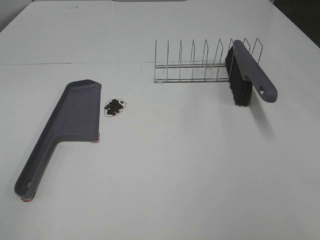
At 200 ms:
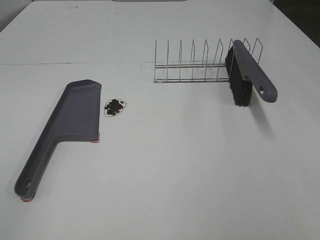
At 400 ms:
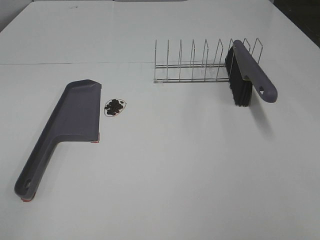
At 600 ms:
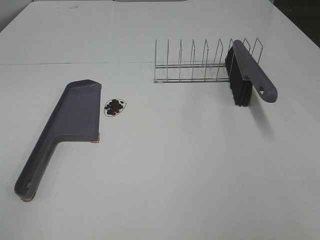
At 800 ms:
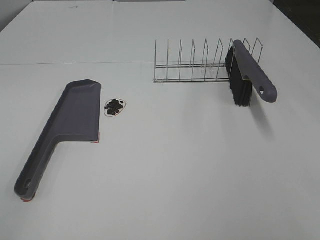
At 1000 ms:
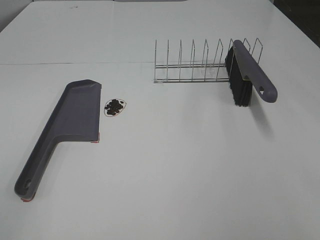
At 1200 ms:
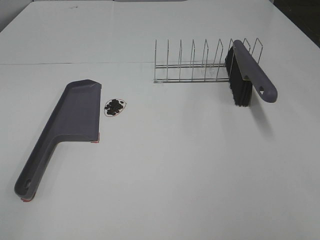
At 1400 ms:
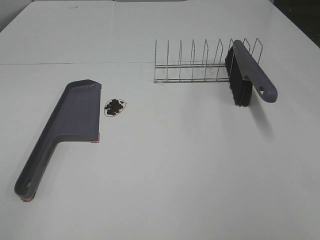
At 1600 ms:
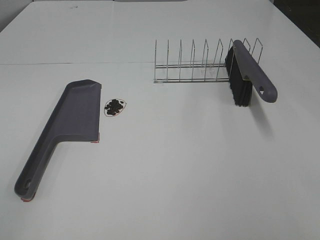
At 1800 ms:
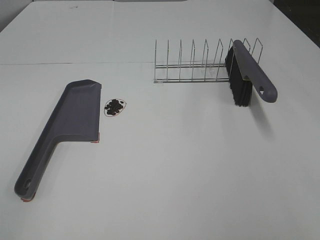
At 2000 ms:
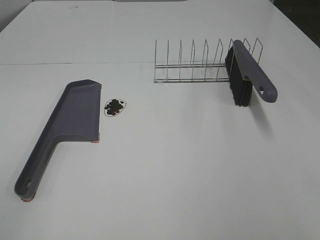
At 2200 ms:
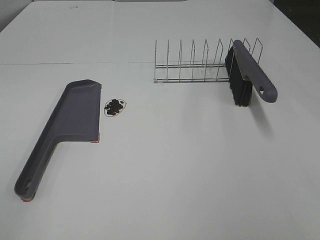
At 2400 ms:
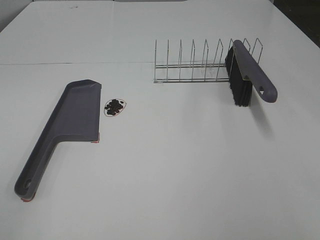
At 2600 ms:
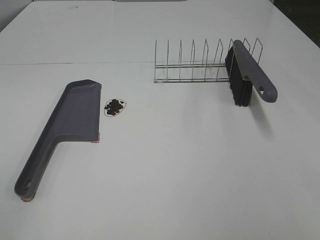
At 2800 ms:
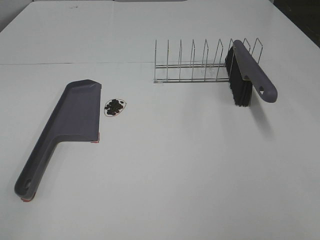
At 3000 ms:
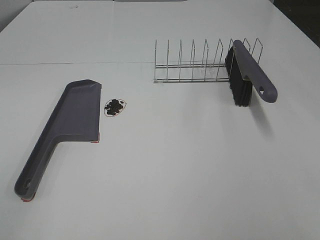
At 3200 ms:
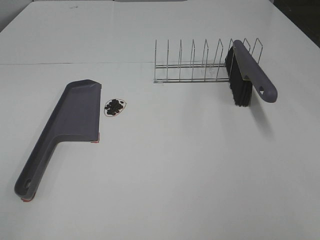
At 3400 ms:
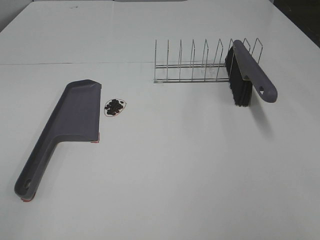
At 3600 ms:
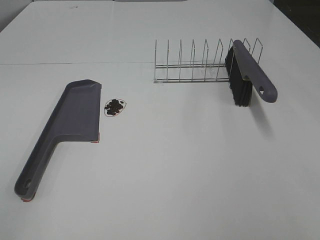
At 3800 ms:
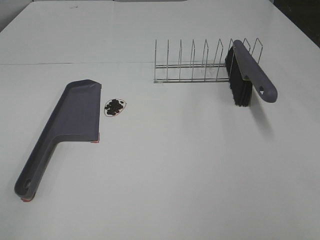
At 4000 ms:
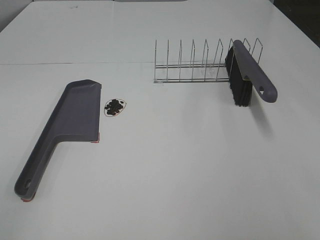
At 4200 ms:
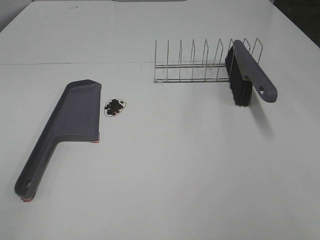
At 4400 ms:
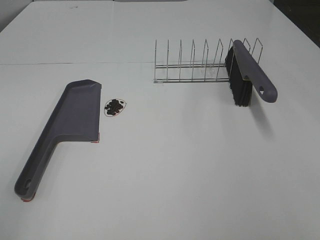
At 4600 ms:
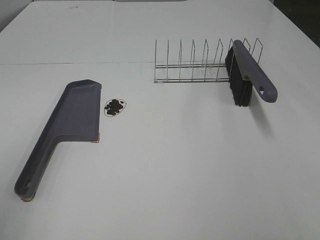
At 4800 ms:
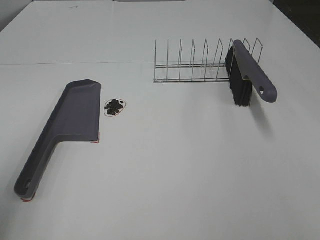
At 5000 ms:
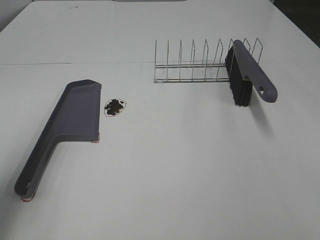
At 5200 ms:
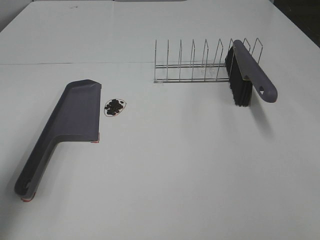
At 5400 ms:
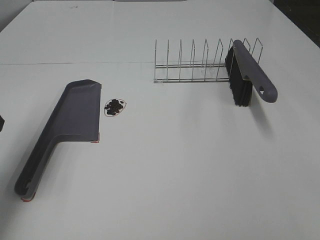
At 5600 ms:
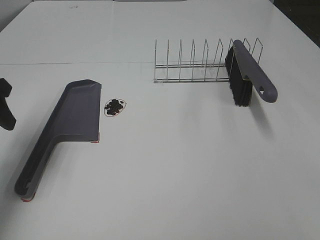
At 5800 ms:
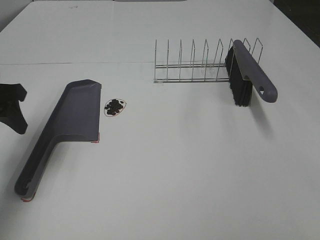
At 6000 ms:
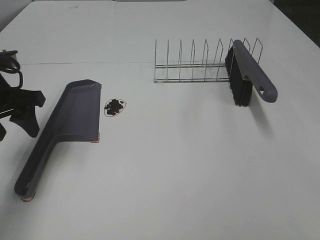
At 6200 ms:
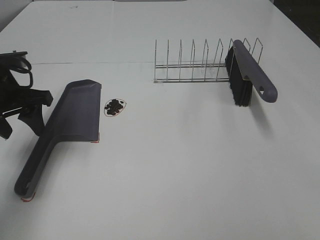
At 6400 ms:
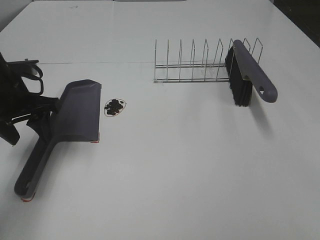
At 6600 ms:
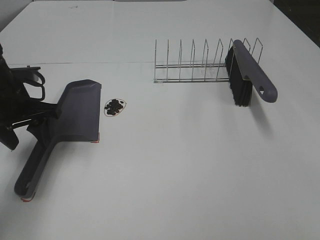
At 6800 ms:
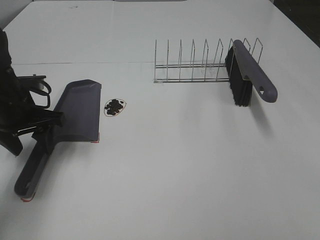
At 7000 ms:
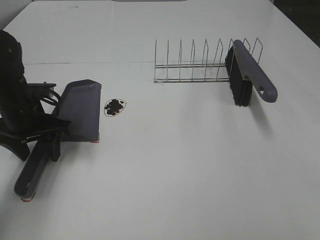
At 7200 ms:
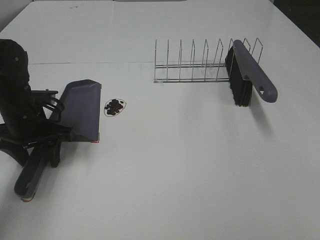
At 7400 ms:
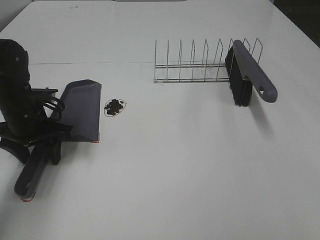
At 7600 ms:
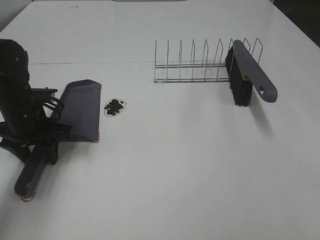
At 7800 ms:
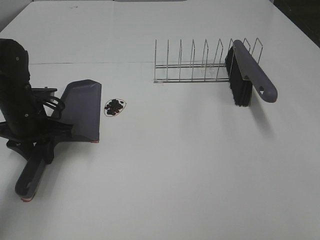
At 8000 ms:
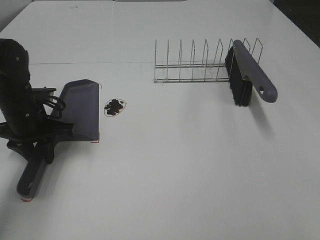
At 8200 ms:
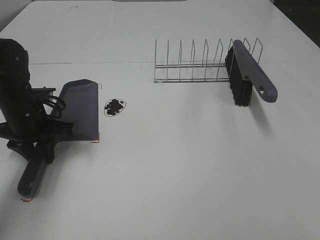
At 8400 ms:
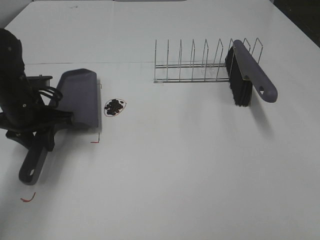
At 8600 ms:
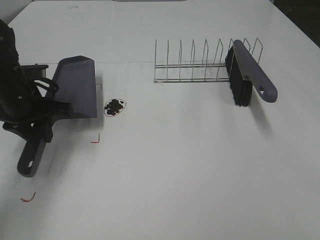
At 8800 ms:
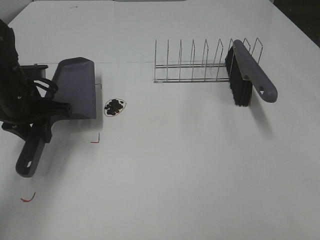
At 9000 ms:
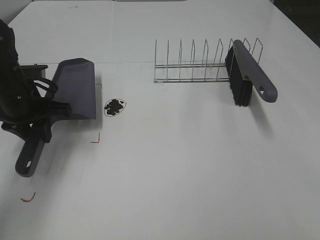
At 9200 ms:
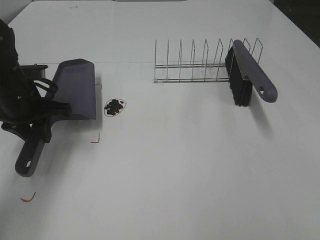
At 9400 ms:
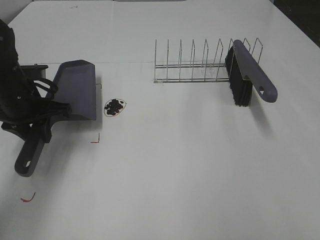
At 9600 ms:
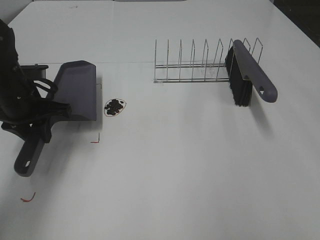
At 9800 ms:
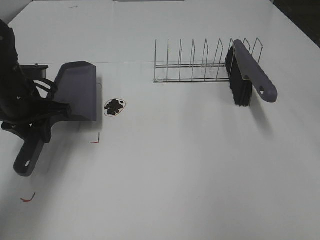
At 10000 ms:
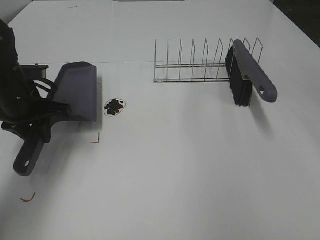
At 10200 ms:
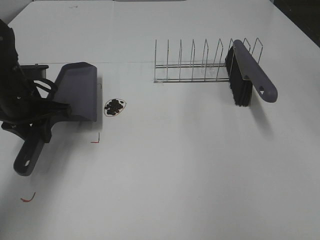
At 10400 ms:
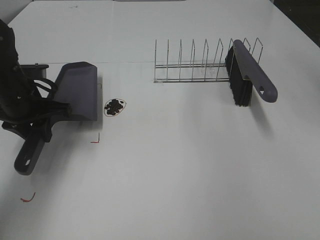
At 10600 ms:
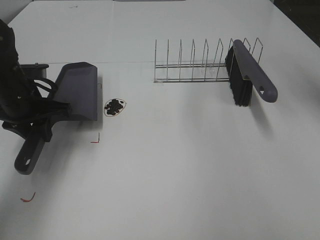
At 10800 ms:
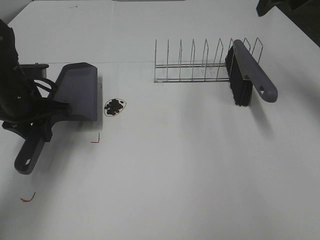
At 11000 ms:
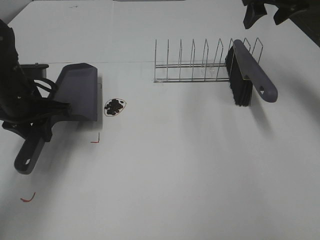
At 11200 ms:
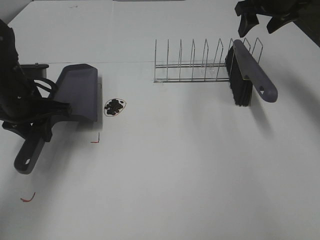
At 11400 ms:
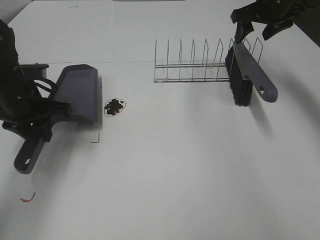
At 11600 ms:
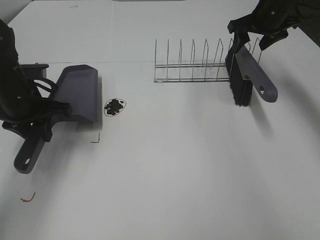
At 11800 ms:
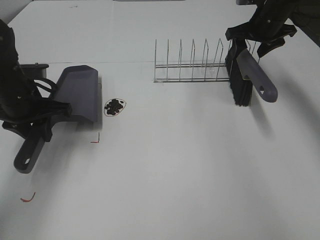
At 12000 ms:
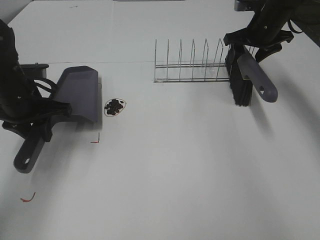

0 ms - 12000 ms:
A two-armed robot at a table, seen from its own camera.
Task of the whole recording: Sweep Coffee Bean.
Step, 0 ms - 7800 ms: Left hand: grab the dustpan.
0 ms - 3000 ms: Both grippers stay put.
4400 ms - 6000 ms: The left gripper shifts some 30 cm forward.
6000 ms - 7600 ms: The left gripper heads downward, covering approximately 10 cm, and closes its fingers.
7600 ms - 9000 ms: The left gripper closes up.
10400 ms - 12000 ms: The right gripper goes approximately 25 cm downward and forward.

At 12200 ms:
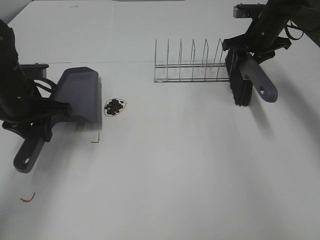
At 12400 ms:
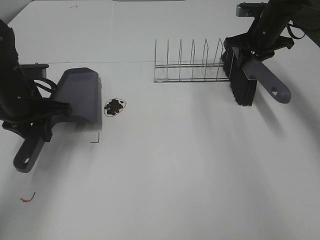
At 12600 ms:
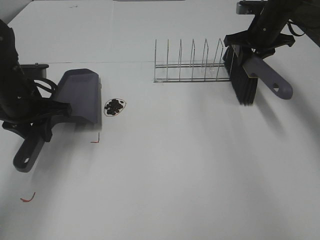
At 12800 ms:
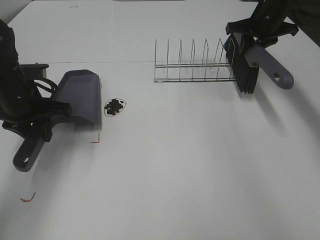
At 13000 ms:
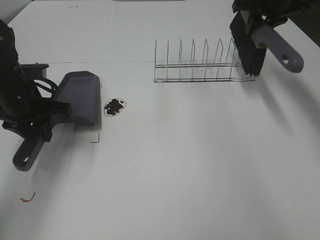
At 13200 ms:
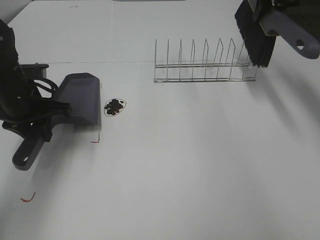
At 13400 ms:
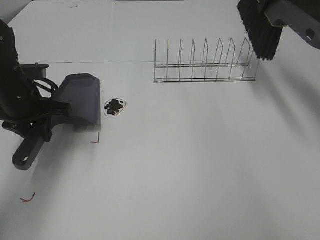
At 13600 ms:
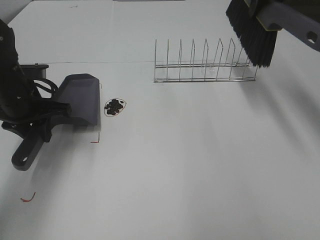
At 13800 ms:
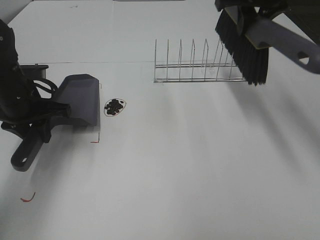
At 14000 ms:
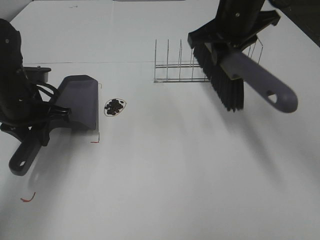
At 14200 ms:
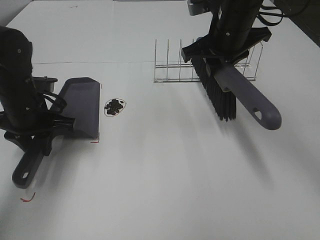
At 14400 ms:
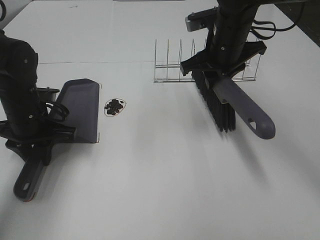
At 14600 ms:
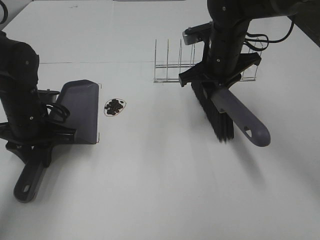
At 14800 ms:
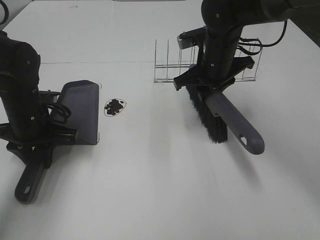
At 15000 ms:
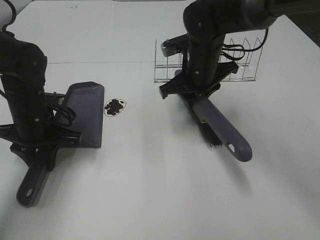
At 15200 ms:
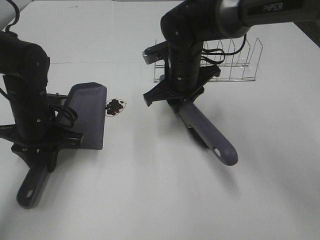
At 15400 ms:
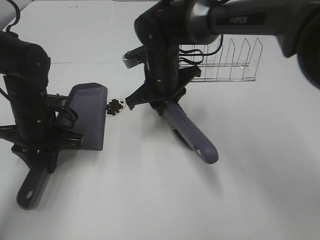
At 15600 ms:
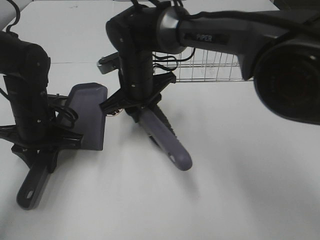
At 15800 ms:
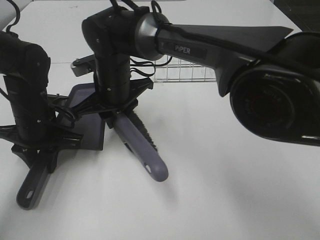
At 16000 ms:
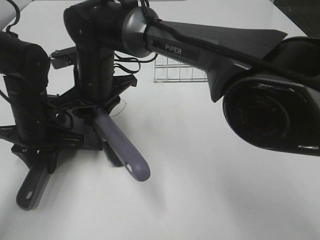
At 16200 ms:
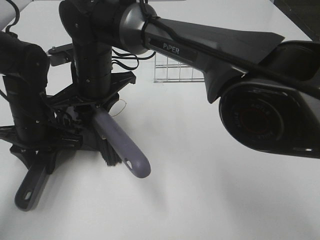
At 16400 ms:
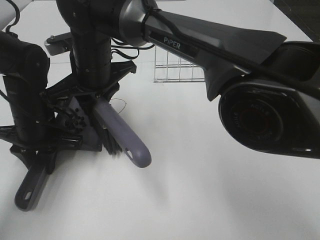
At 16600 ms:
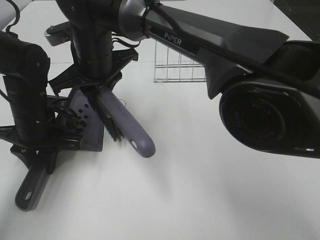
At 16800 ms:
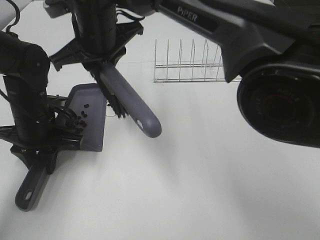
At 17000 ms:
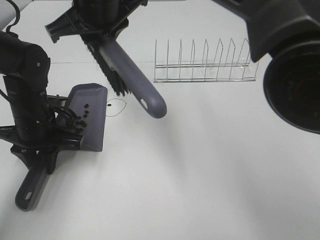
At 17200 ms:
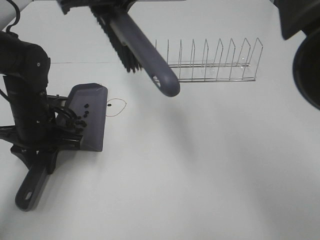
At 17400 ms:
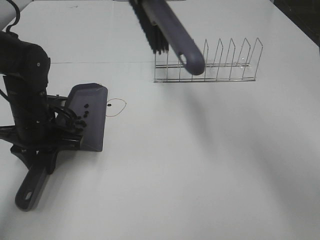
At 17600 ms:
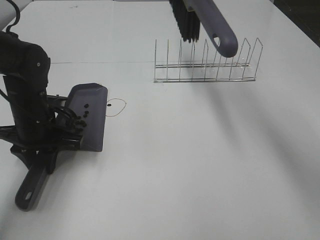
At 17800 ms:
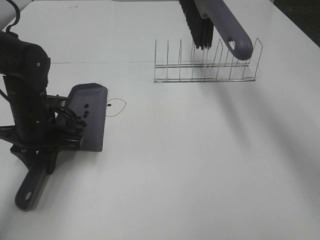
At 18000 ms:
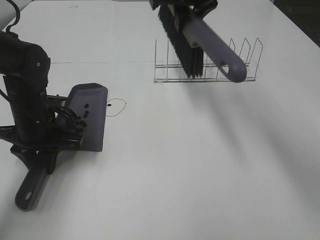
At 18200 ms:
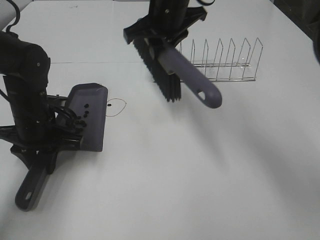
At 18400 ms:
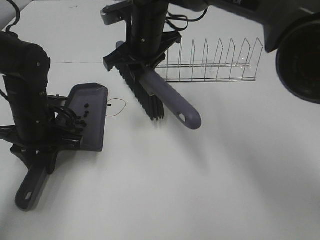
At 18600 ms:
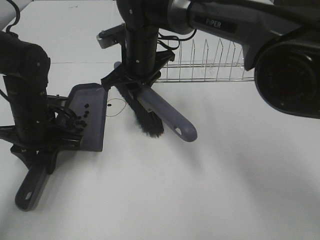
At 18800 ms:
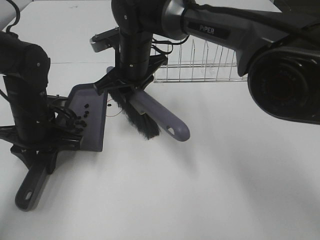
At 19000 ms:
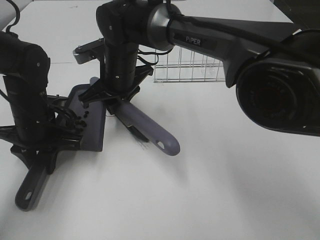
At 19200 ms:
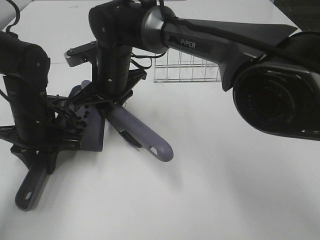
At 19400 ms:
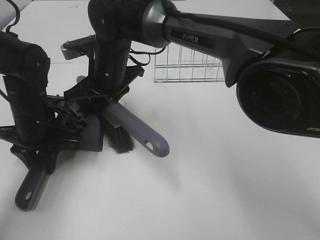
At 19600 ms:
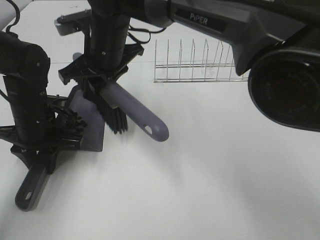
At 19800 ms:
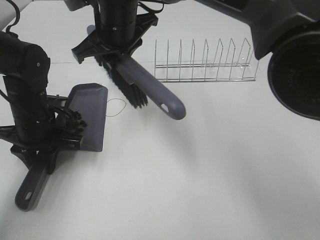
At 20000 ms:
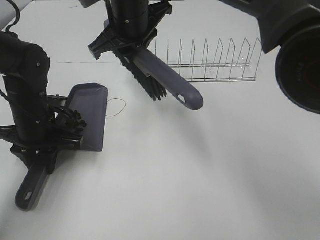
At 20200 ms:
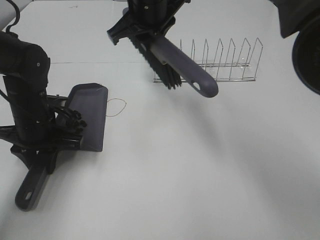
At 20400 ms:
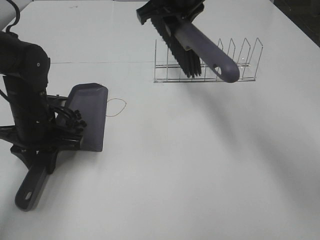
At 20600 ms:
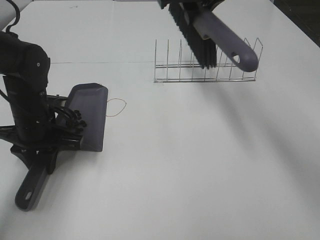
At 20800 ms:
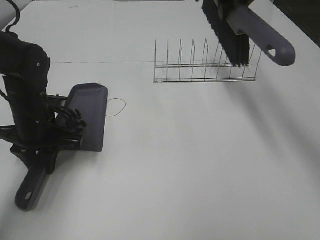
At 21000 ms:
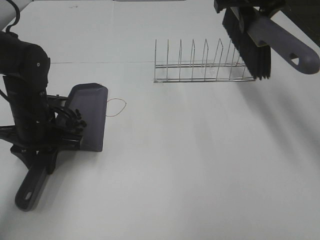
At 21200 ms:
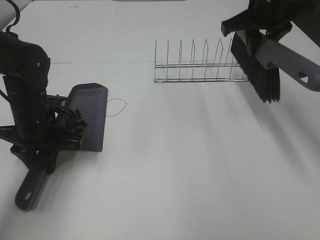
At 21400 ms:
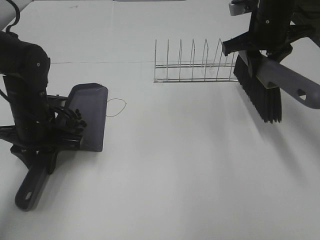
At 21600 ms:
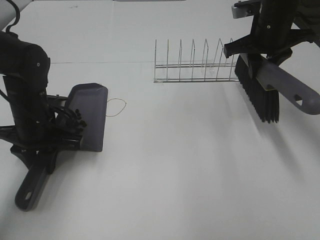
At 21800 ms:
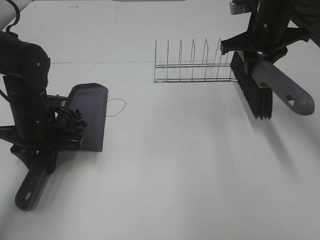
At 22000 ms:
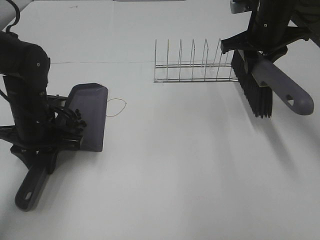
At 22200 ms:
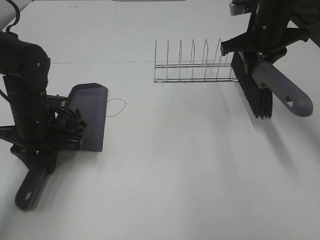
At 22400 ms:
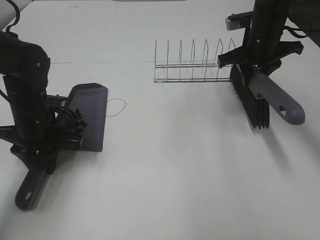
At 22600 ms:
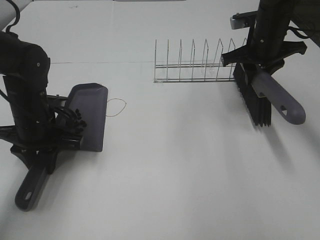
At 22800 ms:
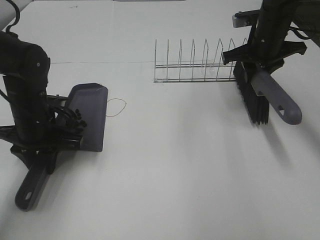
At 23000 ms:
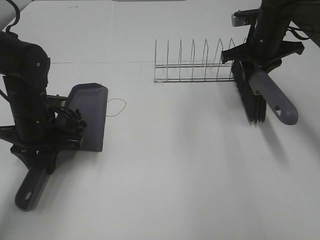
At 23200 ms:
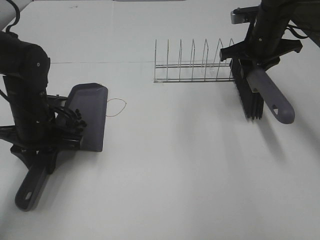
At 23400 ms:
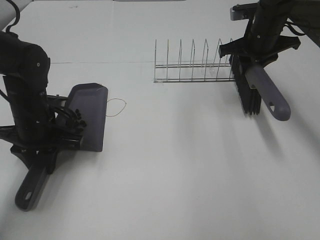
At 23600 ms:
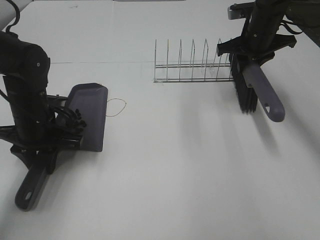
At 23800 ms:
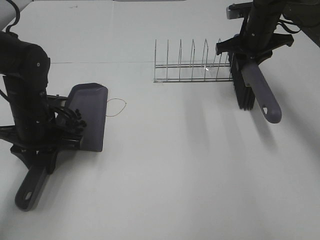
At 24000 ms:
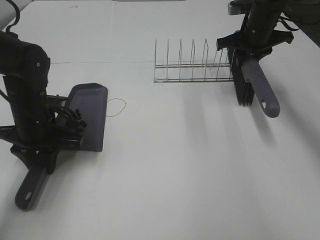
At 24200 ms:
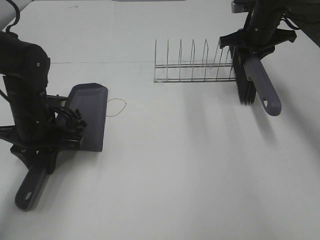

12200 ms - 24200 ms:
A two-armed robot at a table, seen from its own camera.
Task of the whole recording: Sweep Coffee Bean.
Step, 12600 ms - 19400 ms: Right hand:sweep the coffee beans into the dustpan.
12200 ms - 13800 ms: The right gripper shifts roughly 20 cm upward, backward and to the left.
13800 ms - 15200 ms: The left gripper ends up roughly 5 cm from where it was, while the right gripper is displaced downward and to the left by approximately 20 cm.
15200 ms - 16600 ms: The right gripper is displaced to the left by about 15 cm.
16600 ms - 18200 ms: The right gripper is displaced to the right and forward by roughly 15 cm.
18200 ms - 19800 ms: The right gripper heads to the left, covering roughly 10 cm, and reaches about 10 cm downward, then returns.
19800 ms - 21200 ms: The right gripper travels to the right by some 25 cm.
21200 ms - 22600 ms: The right gripper is displaced downward by roughly 5 cm.
22600 ms - 24200 ms: The right gripper shifts roughly 5 cm forward.
